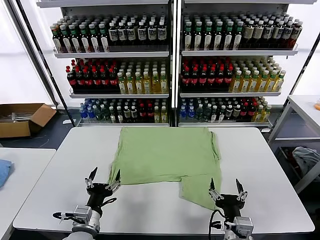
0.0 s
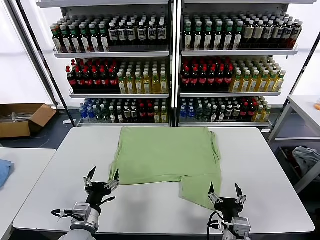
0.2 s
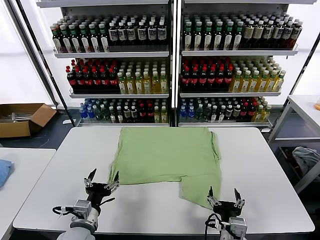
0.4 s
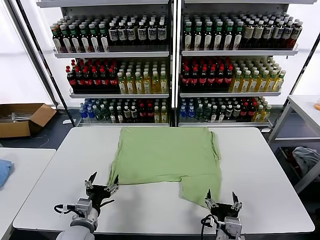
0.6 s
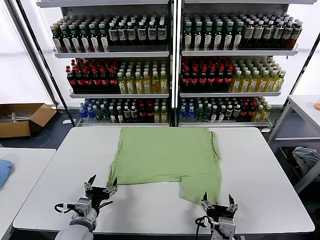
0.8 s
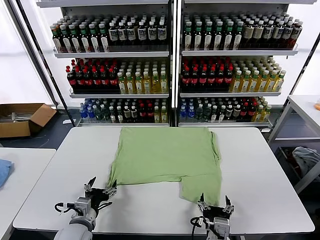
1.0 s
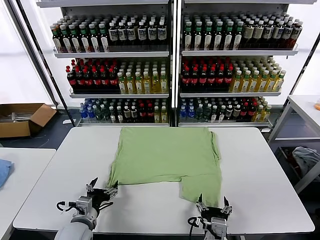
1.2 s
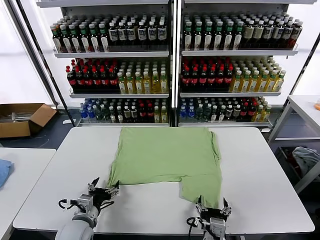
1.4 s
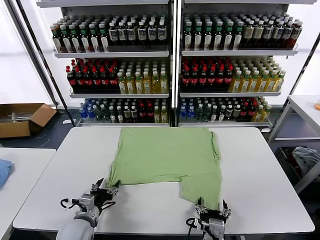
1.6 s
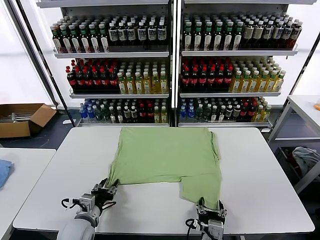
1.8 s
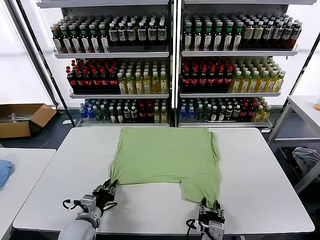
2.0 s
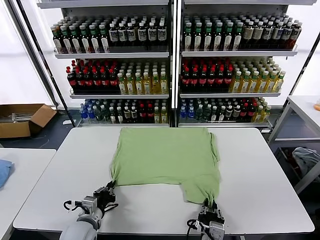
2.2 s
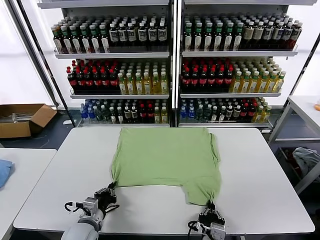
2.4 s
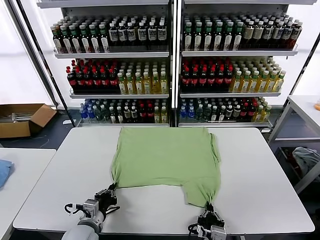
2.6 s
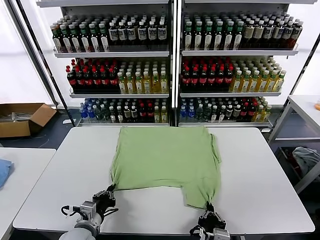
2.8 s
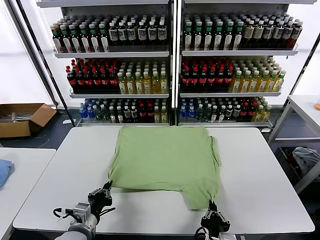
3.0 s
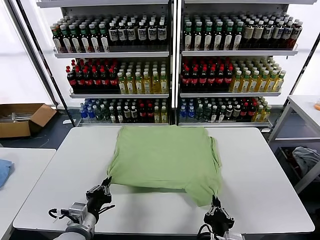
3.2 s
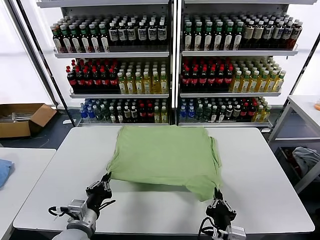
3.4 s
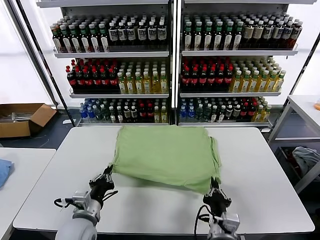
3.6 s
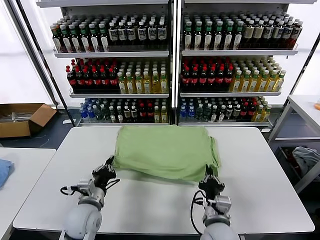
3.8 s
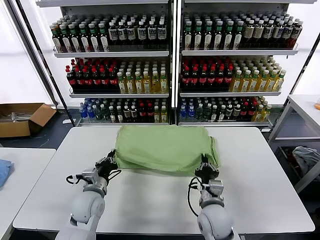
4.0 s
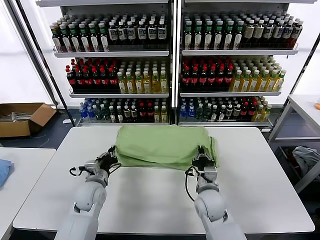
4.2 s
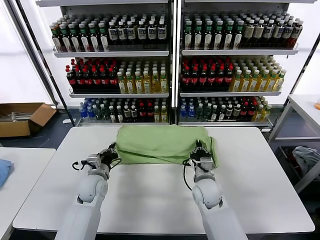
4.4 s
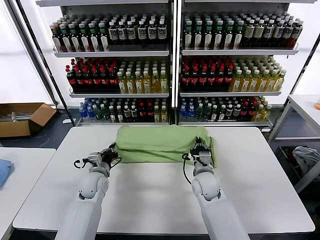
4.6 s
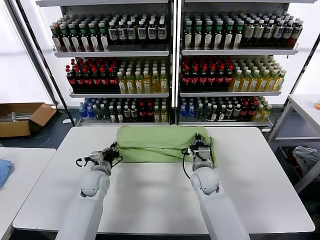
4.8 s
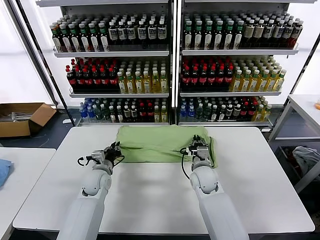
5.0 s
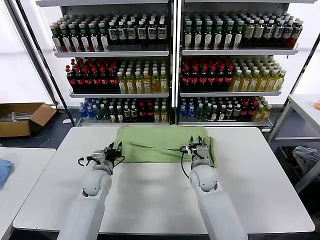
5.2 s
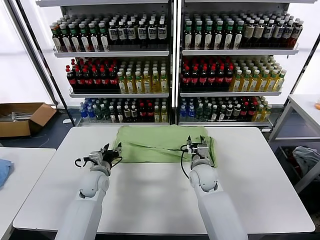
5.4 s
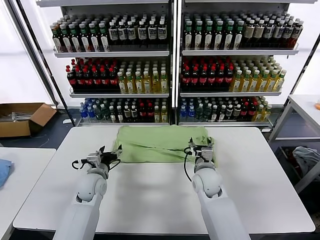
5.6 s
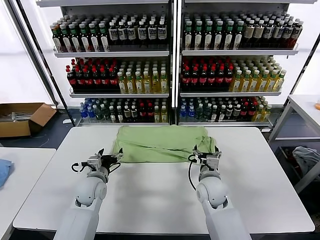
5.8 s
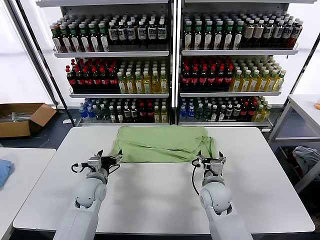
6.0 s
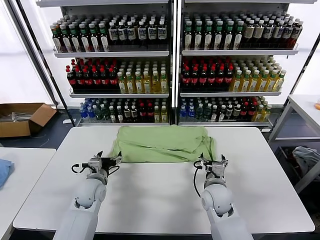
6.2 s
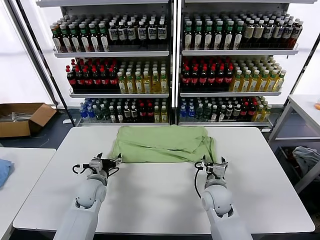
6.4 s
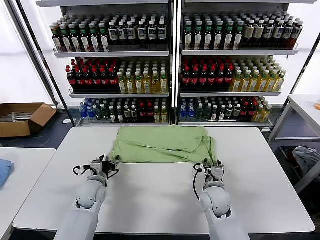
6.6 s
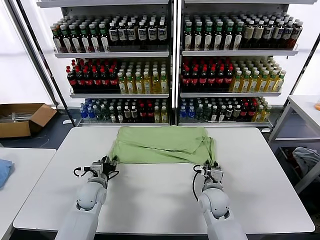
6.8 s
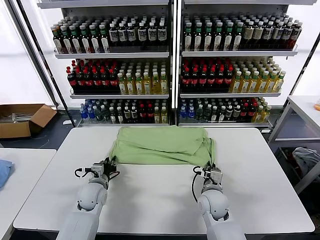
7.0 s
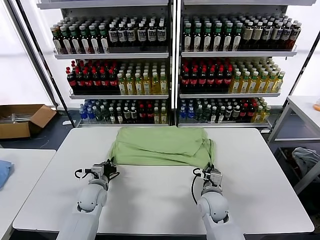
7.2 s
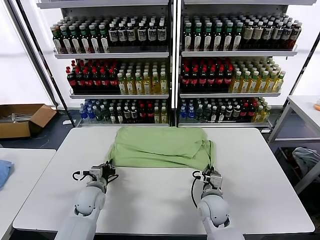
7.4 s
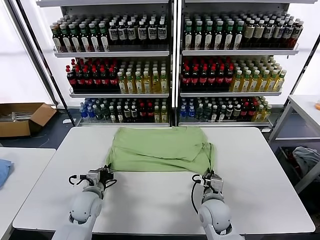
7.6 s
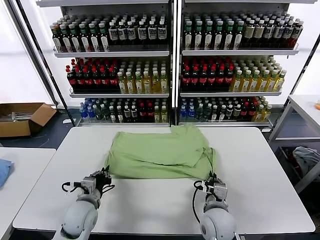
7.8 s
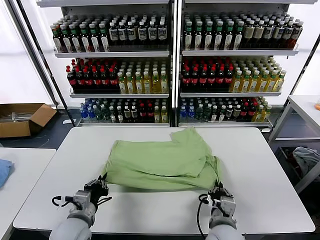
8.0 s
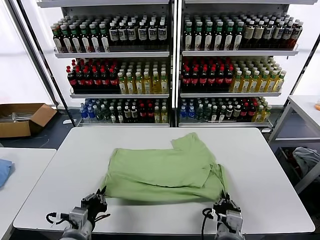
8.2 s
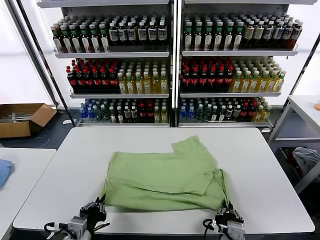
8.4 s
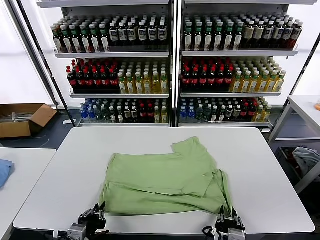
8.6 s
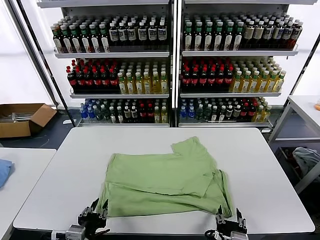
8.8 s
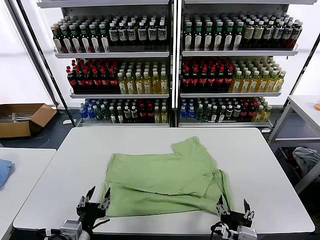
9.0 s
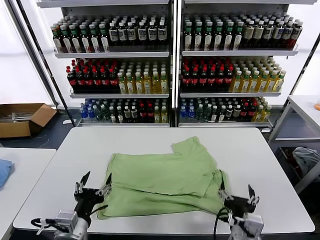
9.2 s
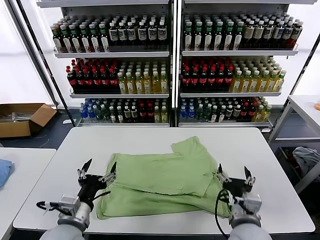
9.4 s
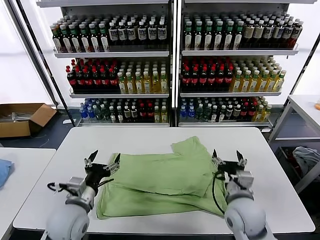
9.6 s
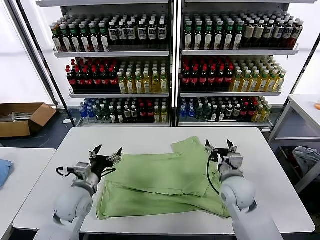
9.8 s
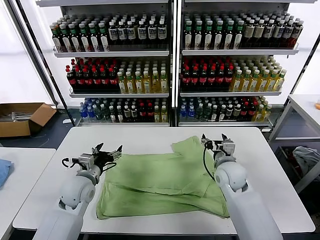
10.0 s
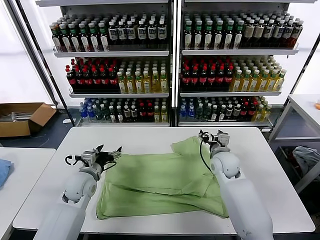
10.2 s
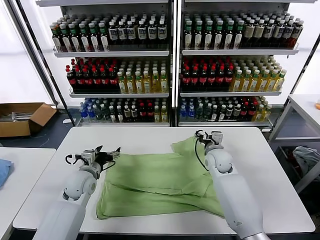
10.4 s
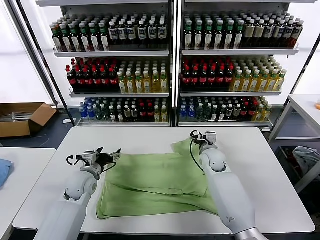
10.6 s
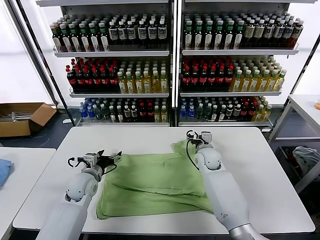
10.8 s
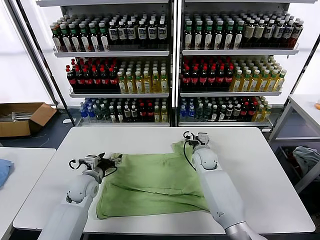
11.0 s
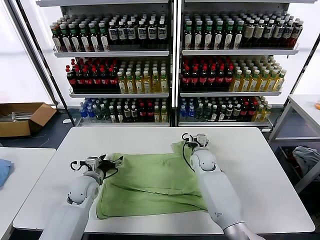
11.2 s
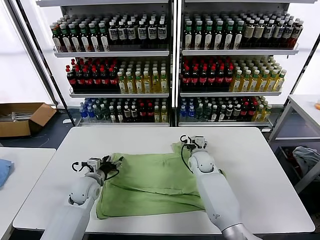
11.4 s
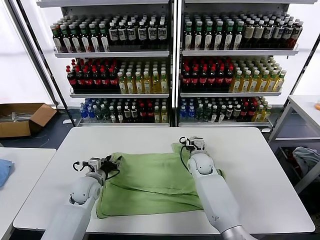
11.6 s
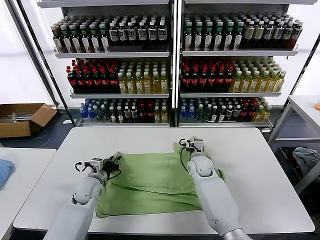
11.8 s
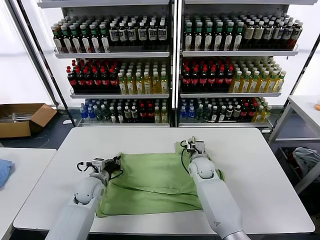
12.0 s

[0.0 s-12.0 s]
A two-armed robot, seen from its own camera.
Task of the whole recording: fold and organize the clothes.
Step, 0.0 to 2.4 s: use both grippers simultaneously to clamp the lower edge of the clothing fabric.
Step, 2.6 to 5.4 s: use both grippers to drag the lower edge of the fabric forward and fold it over the upper edge.
Step, 5.6 to 9.0 s: Drag the clothes downward with both gripper.
1.6 to 3.0 s: The left gripper shifts by approximately 5 cm, and closes up. Meanwhile the right gripper is displaced upward by about 5 cm, and closes its fingers.
3.0 to 4.4 s: The two grippers go some 25 cm forward.
4.4 to 6.0 s: The right gripper shifts by some 5 cm, and opens; the left gripper opens its fingers.
6.0 to 7.6 s: The right gripper travels backward by approximately 5 cm, and closes; the left gripper moves approximately 5 cm, and closes its fingers.
7.6 to 9.0 s: Both grippers move backward and upward, about 20 cm. The right gripper opens its fingers. The left gripper opens.
9.0 to 10.4 s: The two grippers go about 30 cm forward. The left gripper opens.
10.4 to 12.0 s: The right gripper heads downward, covering approximately 5 cm, and closes its fingers, while the left gripper closes its fingers.

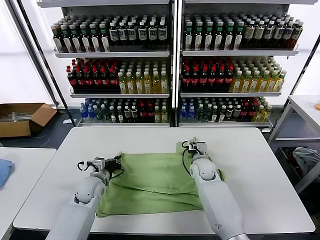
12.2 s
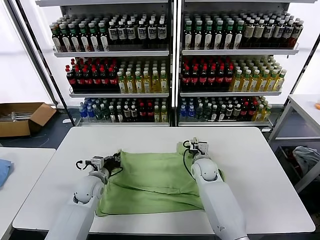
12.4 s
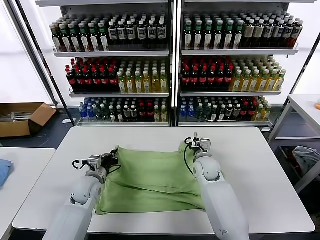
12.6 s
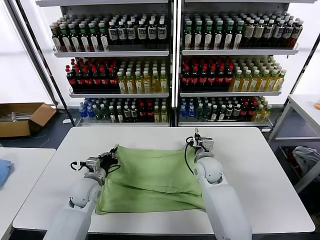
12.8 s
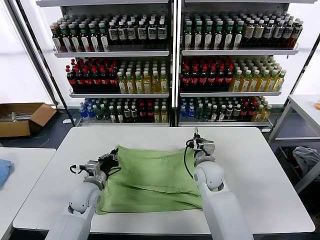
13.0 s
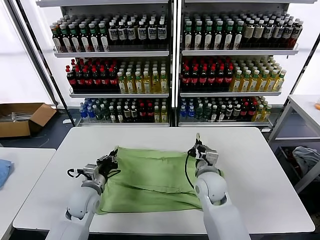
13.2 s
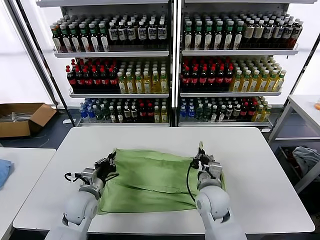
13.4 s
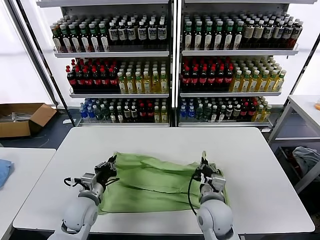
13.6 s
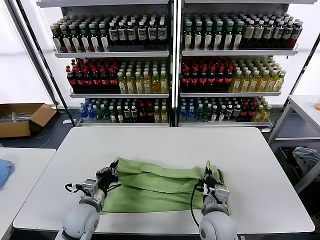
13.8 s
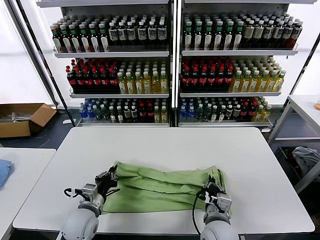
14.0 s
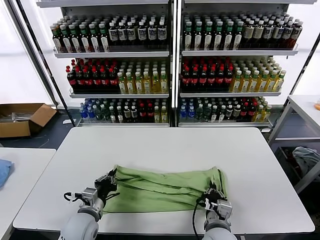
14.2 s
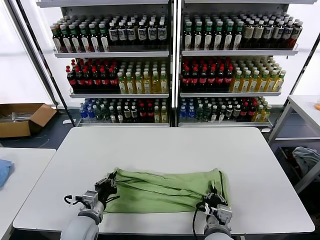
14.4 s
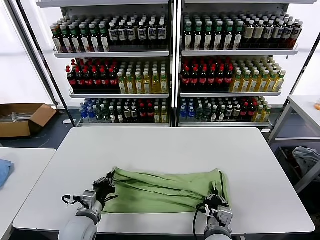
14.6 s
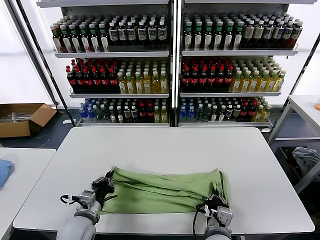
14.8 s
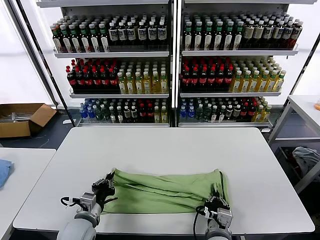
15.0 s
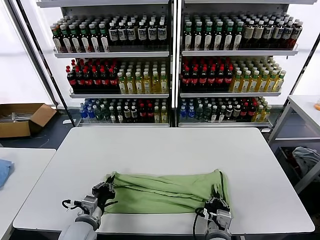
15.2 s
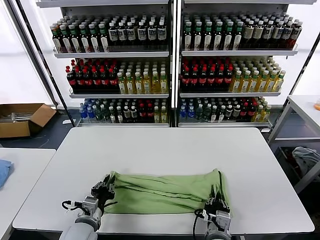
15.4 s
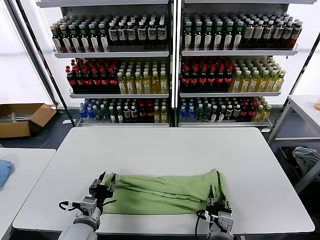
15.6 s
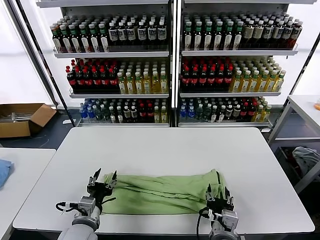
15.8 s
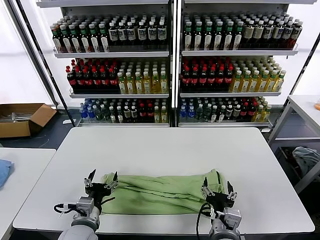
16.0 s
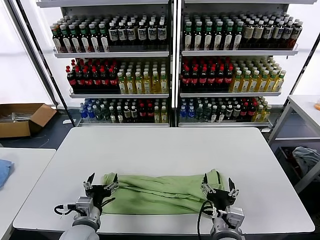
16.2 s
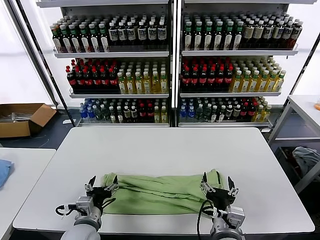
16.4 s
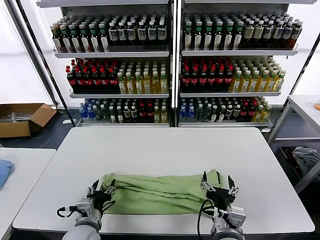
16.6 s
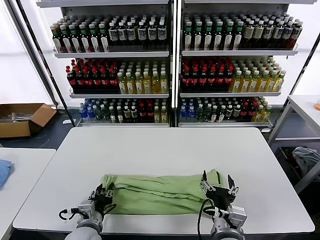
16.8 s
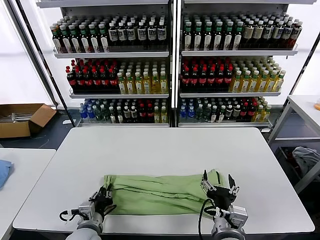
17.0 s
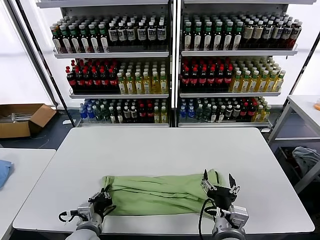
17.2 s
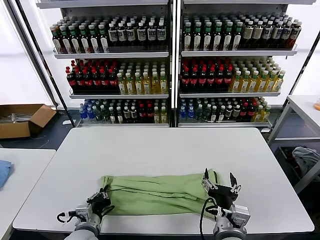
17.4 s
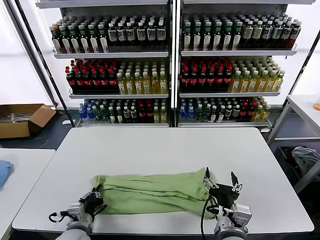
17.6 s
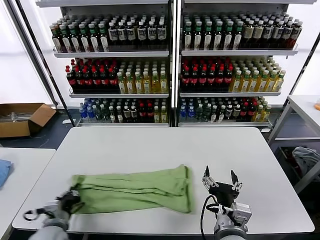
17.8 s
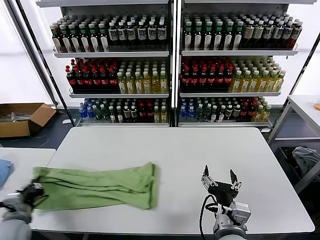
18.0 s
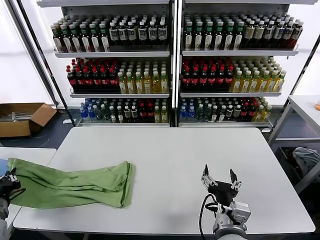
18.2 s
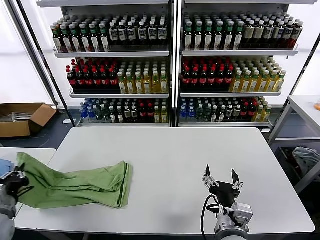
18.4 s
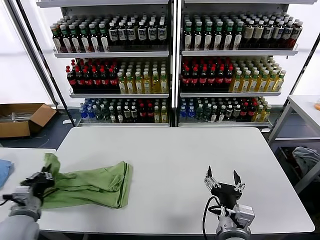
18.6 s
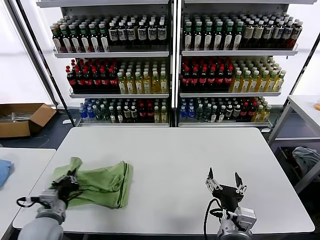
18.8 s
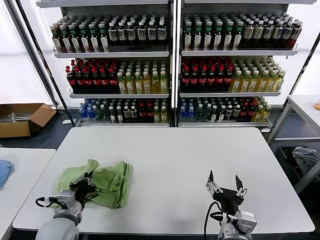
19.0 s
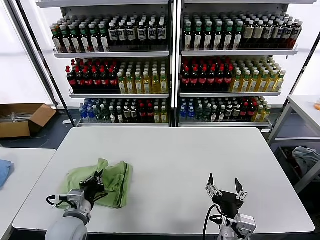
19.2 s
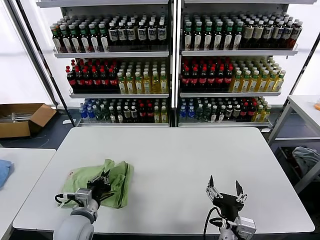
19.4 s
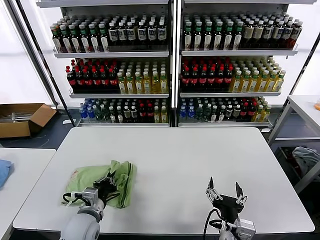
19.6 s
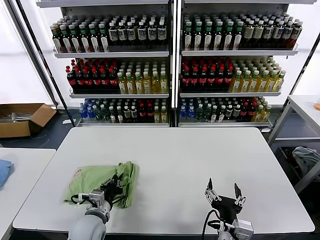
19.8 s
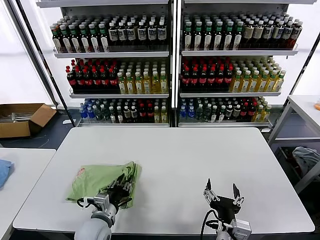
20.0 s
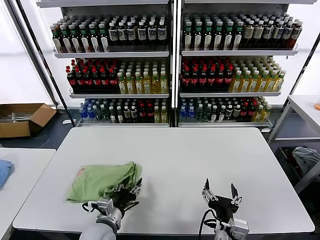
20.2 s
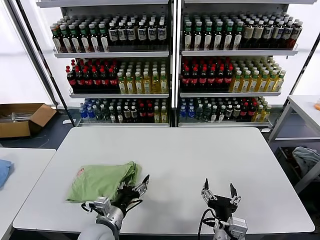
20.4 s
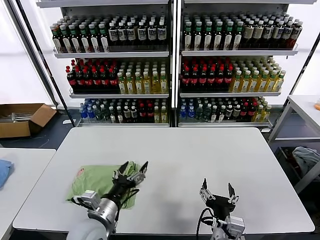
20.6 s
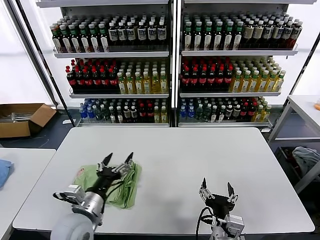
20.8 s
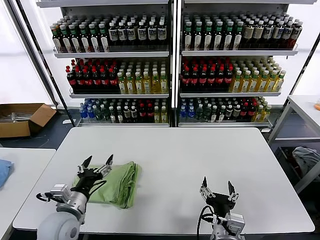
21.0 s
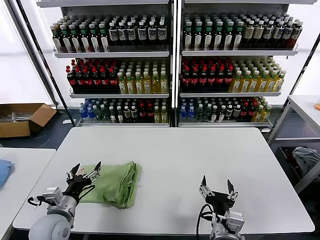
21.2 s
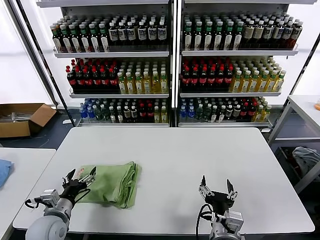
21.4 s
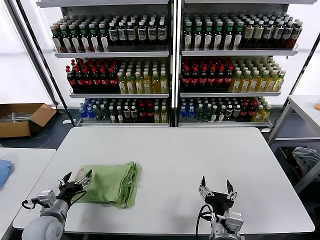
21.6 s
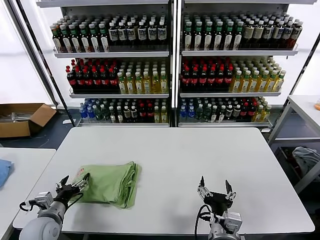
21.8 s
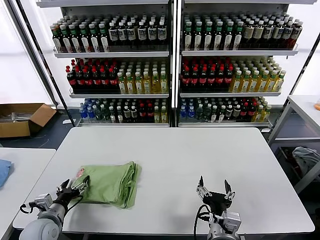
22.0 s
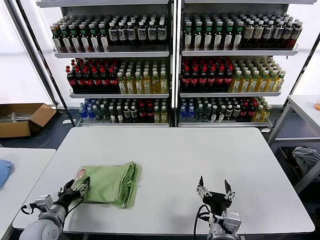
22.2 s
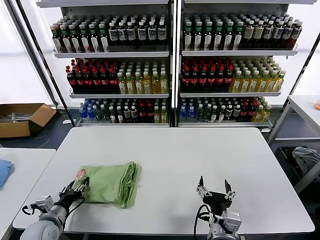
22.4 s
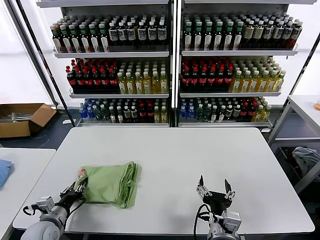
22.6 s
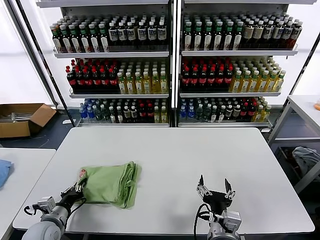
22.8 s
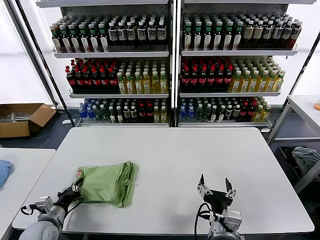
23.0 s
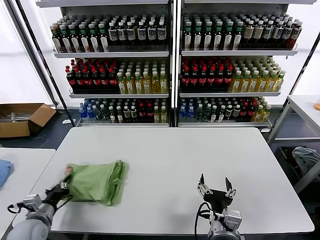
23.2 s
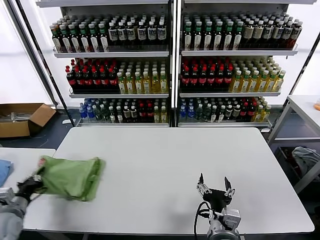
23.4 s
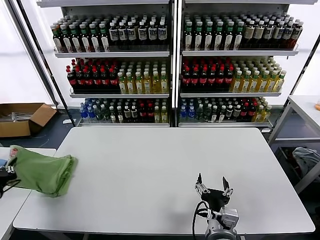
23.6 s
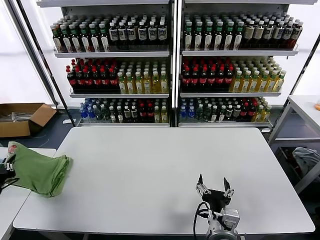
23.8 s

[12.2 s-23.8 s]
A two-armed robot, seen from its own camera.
Task of the whole recording: fold and organize the clothes.
Step, 12.4 to 15.8 s: use both grippers to drag the upper edge of the fabric backward and fold it over the lower edge.
Step, 16.0 to 17.2 s: use the left gripper to clamp the left edge of the fabric.
Step, 17.4 to 20.4 s: use the left gripper to drag the left edge of the fabric to the left and folds it over the right edge.
12.2 to 13.6 s: The left gripper shifts some 10 cm backward; the right gripper shifts about 20 cm backward.
13.6 to 15.0 s: The two grippers go some 5 cm backward.
15.0 to 16.6 s: The right gripper shifts roughly 10 cm upward, and opens its fingers, while the left gripper opens up.
16.6 to 18.0 s: The left gripper goes roughly 20 cm to the left, and closes up.
18.0 to 19.4 s: The left gripper goes some 15 cm to the right.
19.4 to 21.0 s: The left gripper opens up.
21.0 to 22.4 s: The left gripper shifts some 15 cm to the left and downward.
22.4 to 23.8 s: The left gripper goes roughly 20 cm to the left and upward, and closes up.
